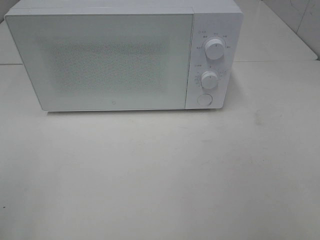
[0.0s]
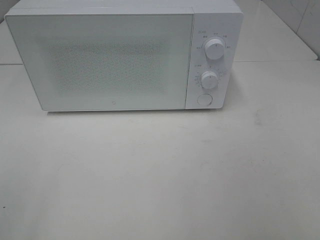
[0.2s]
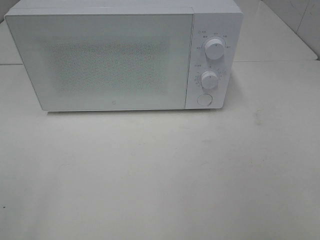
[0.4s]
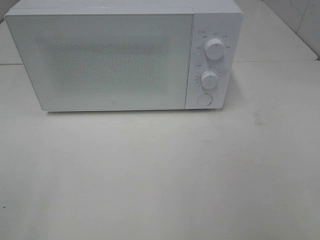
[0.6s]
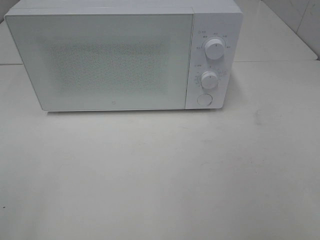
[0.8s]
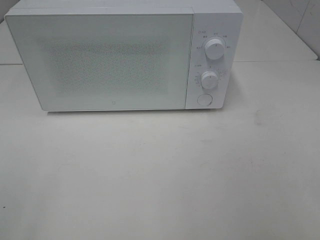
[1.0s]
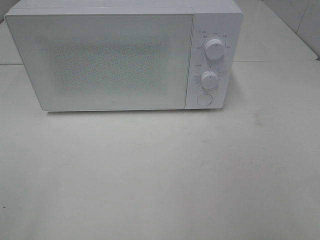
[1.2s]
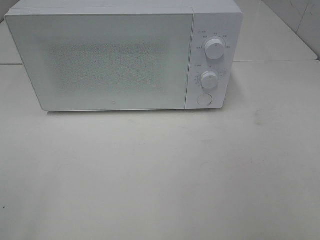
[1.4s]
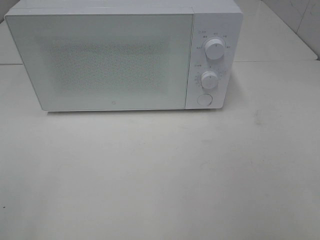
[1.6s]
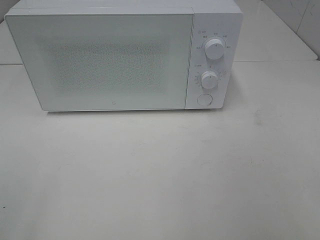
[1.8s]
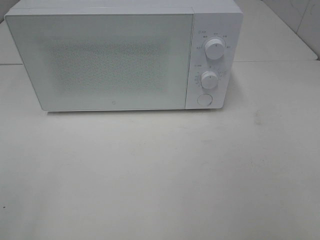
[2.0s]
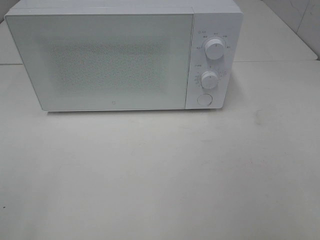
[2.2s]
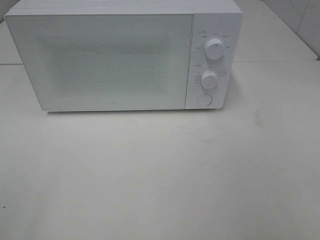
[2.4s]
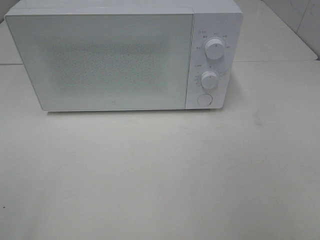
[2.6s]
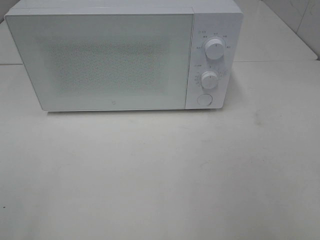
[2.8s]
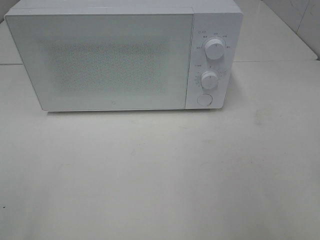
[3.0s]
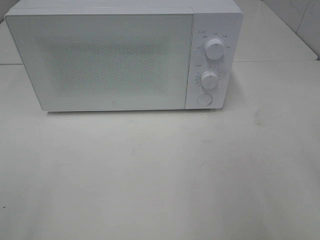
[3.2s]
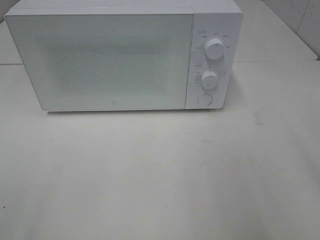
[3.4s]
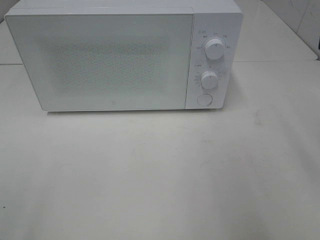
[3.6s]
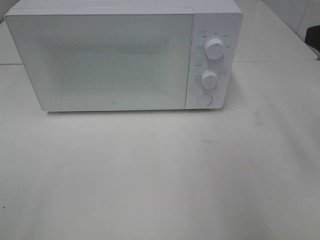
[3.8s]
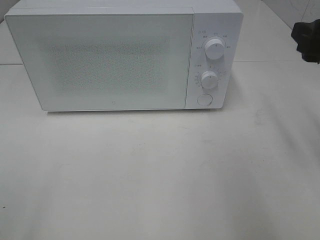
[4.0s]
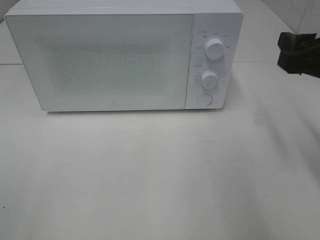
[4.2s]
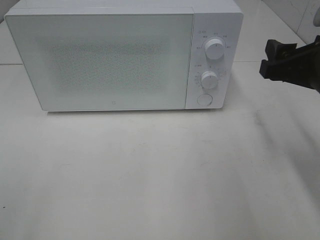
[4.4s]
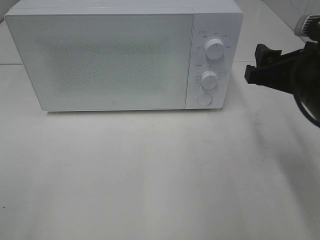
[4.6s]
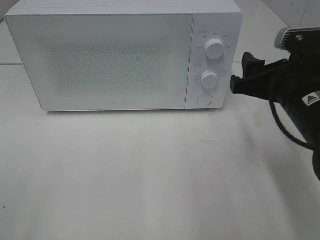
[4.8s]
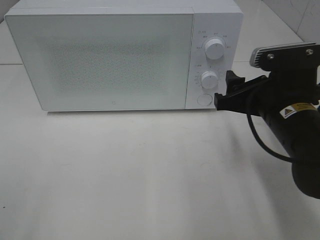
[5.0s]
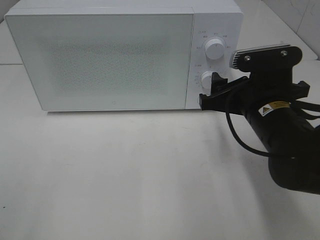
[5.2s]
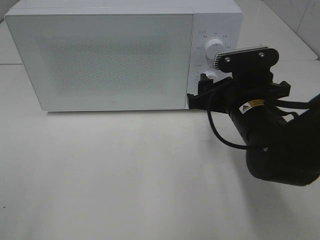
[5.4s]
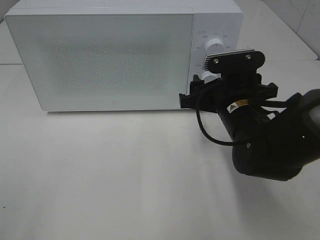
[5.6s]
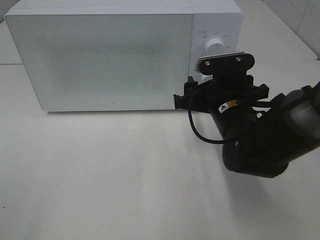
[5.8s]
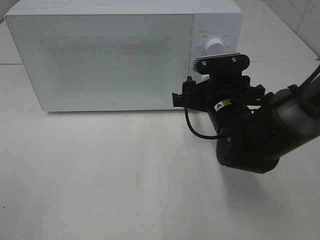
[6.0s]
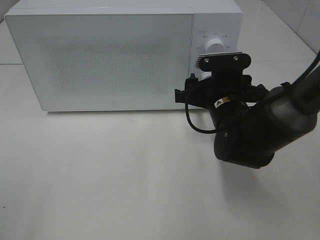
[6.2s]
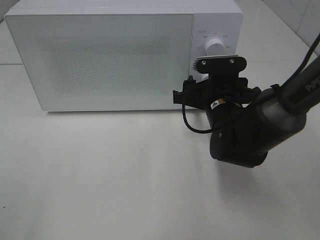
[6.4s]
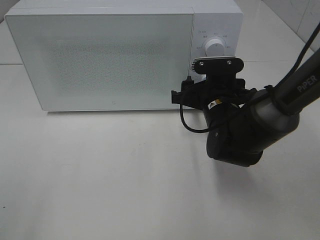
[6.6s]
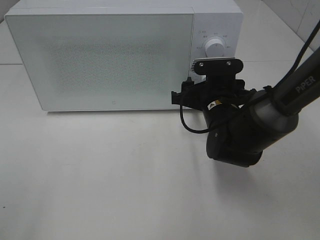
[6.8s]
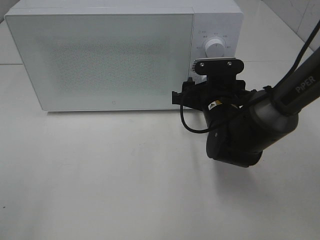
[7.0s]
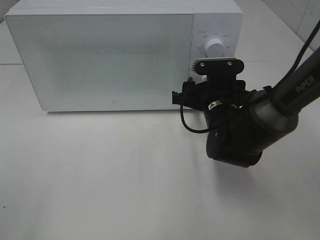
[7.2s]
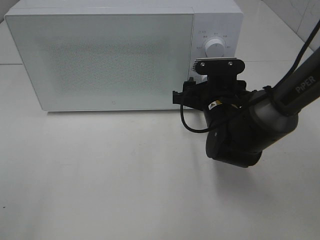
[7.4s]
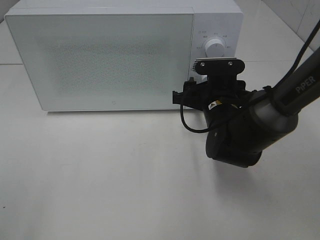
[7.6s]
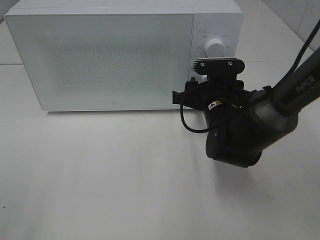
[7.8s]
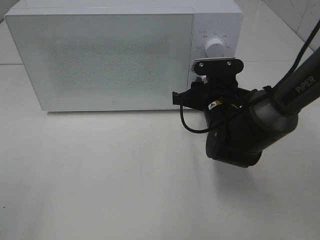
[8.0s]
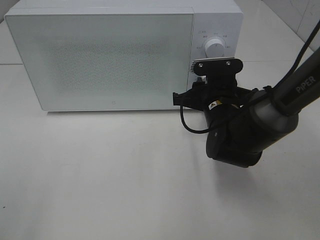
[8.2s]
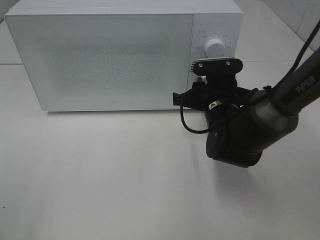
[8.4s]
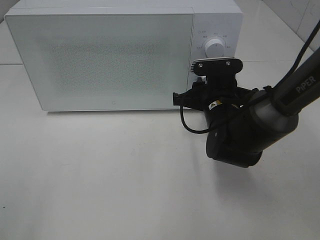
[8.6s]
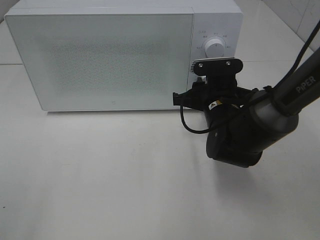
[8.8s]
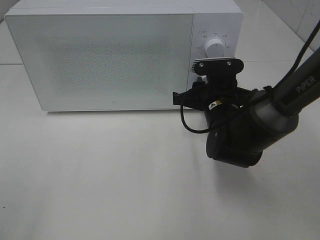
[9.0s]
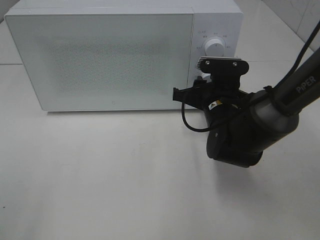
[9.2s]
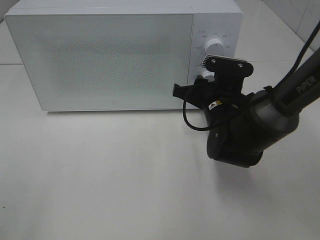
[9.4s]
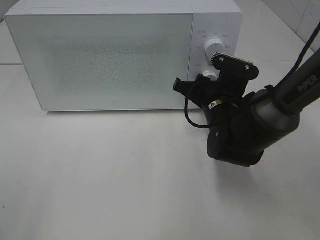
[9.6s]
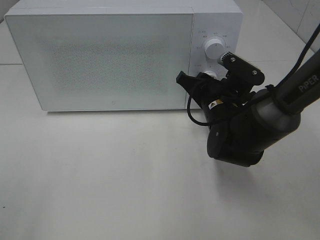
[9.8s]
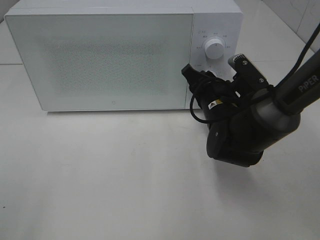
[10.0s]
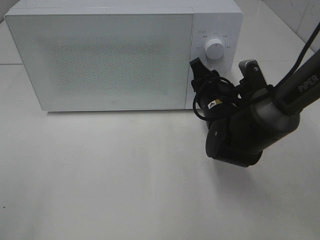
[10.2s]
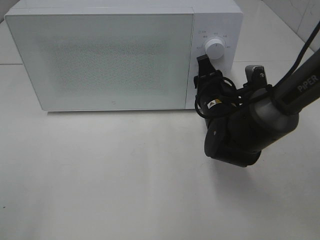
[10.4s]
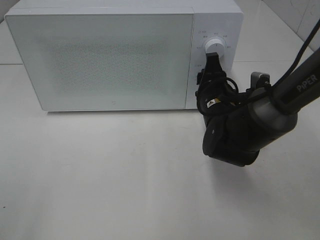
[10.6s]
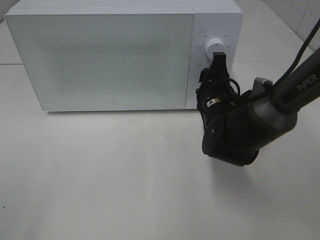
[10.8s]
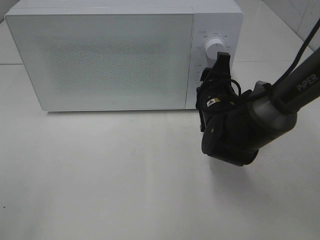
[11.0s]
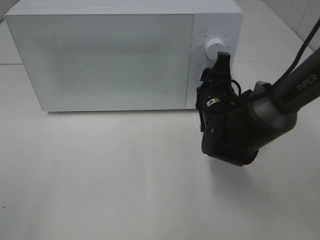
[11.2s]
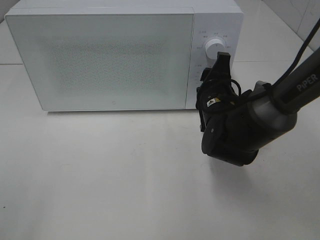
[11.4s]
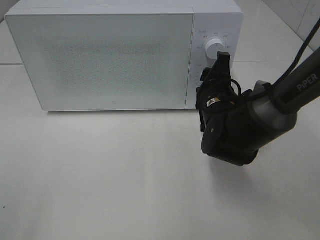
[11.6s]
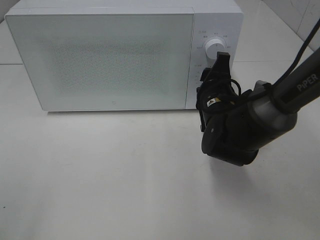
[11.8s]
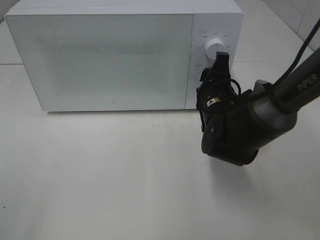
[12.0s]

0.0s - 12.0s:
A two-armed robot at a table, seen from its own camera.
Task of the whole recording: Heat the burger.
3.0s - 4.4s: The right gripper moves forward and downward, some 15 cm.
4.4s - 6.0s: The right gripper is displaced to the left, downward and forward by some 15 cm.
6.0s - 7.6s: There are only small adjustments of the grippers.
7.6s - 9.0s: Both grippers stay about where they are.

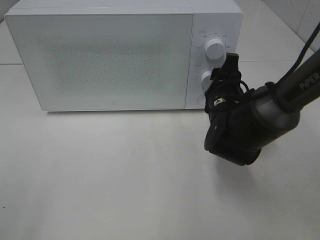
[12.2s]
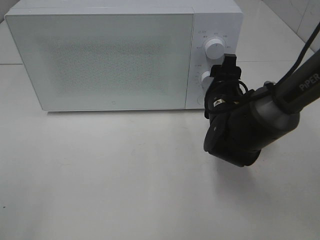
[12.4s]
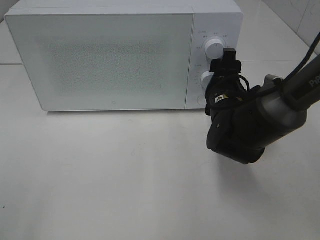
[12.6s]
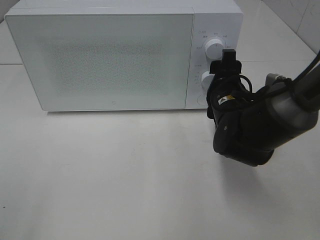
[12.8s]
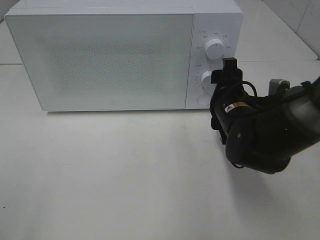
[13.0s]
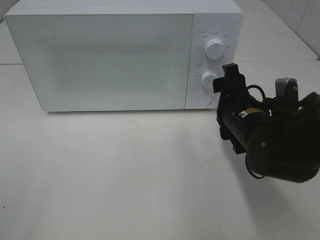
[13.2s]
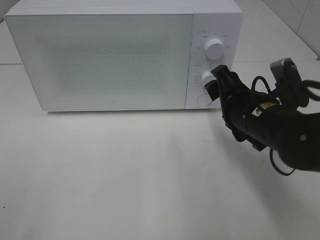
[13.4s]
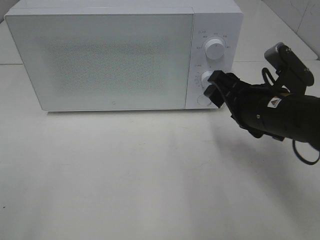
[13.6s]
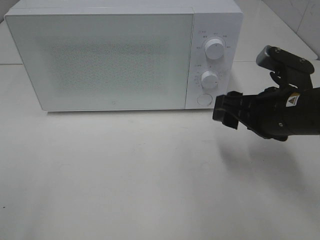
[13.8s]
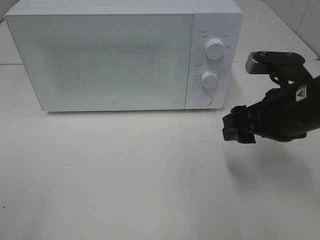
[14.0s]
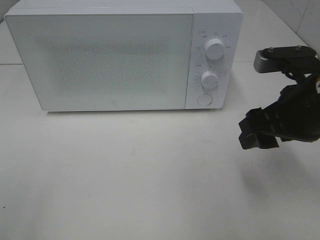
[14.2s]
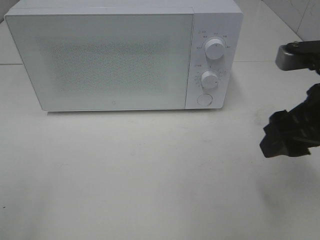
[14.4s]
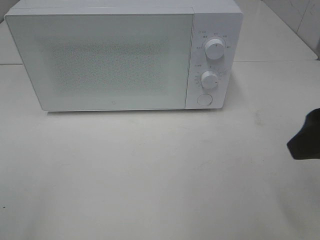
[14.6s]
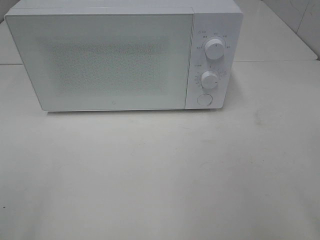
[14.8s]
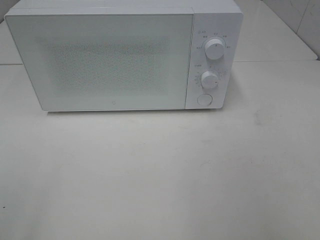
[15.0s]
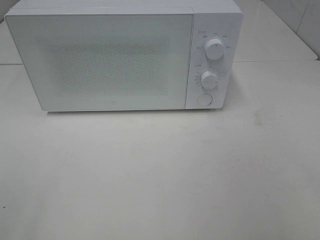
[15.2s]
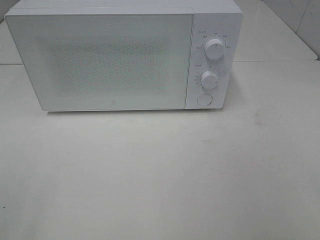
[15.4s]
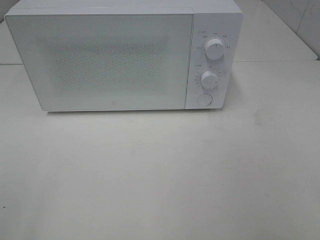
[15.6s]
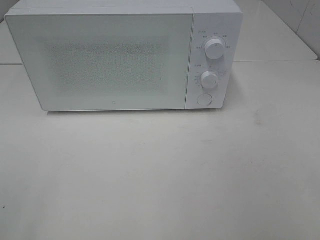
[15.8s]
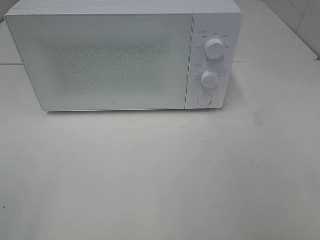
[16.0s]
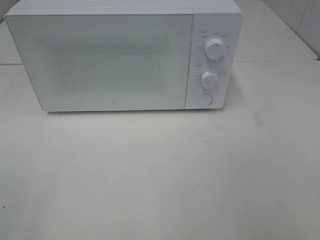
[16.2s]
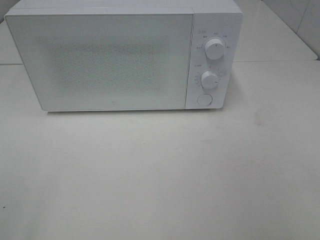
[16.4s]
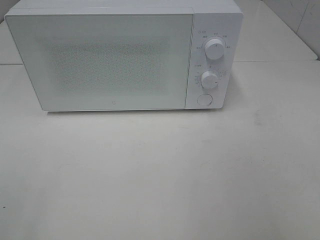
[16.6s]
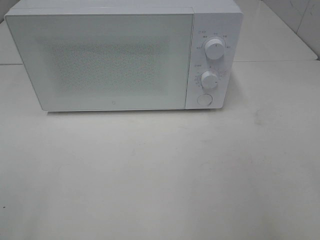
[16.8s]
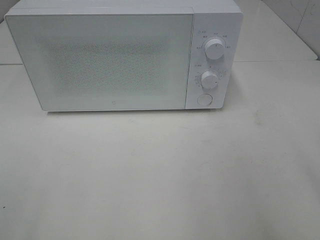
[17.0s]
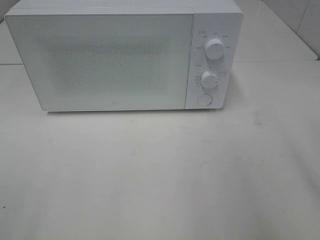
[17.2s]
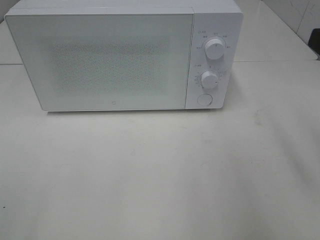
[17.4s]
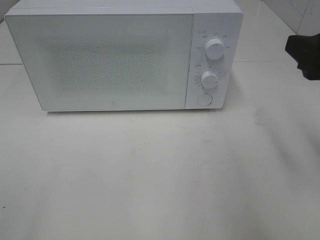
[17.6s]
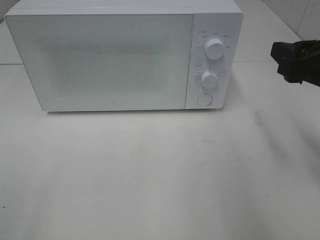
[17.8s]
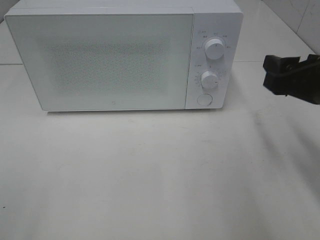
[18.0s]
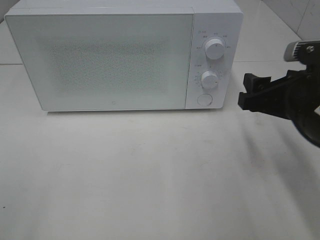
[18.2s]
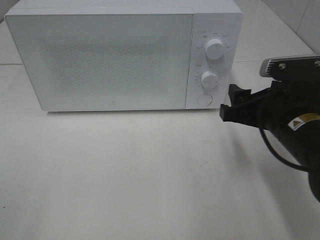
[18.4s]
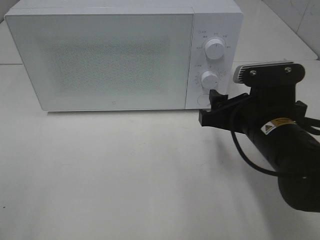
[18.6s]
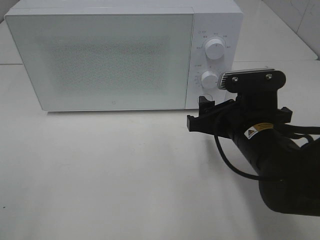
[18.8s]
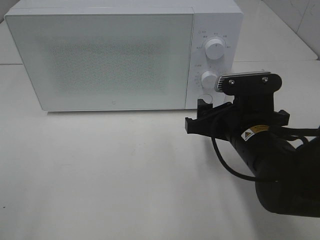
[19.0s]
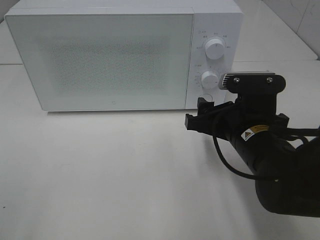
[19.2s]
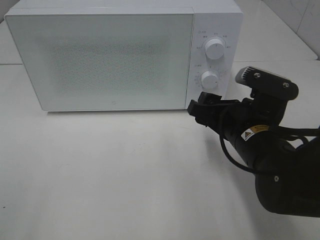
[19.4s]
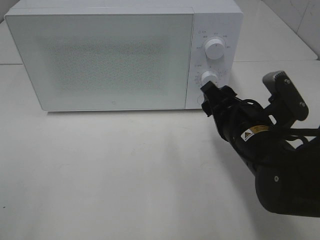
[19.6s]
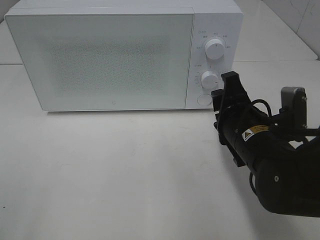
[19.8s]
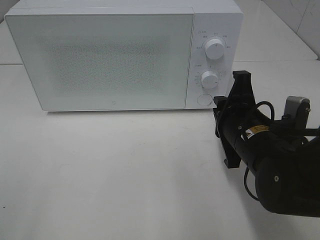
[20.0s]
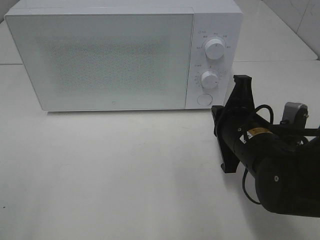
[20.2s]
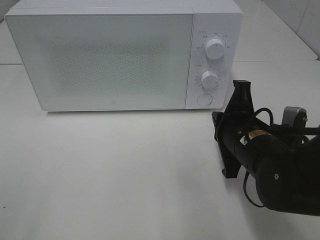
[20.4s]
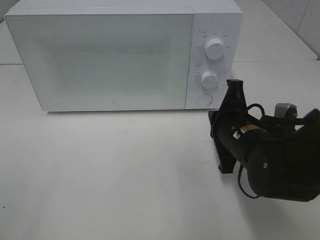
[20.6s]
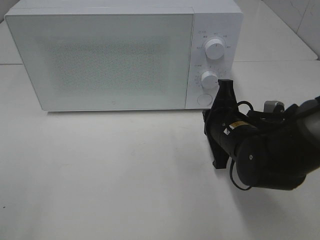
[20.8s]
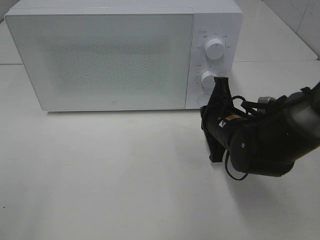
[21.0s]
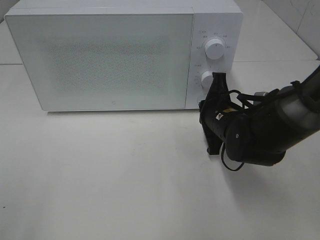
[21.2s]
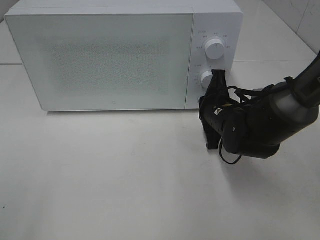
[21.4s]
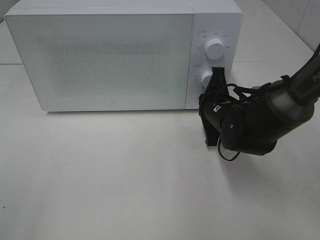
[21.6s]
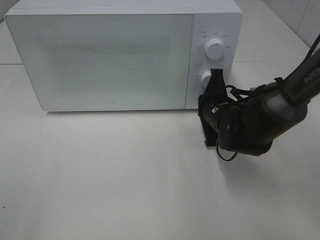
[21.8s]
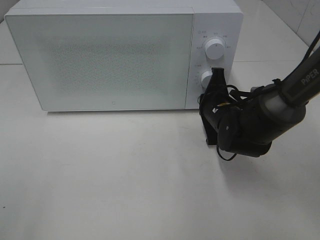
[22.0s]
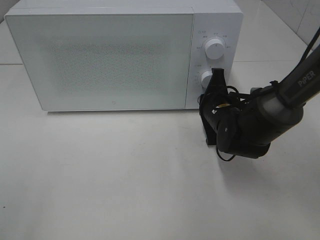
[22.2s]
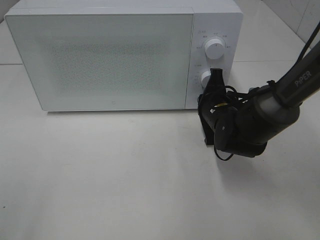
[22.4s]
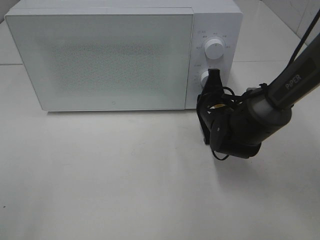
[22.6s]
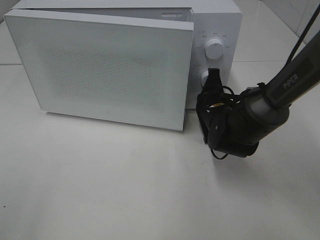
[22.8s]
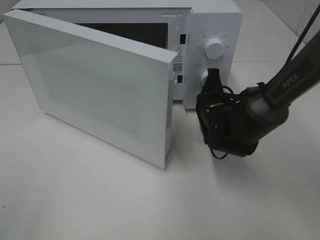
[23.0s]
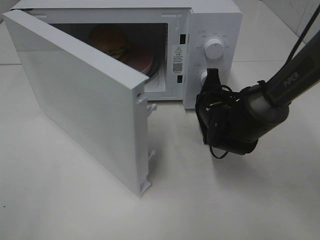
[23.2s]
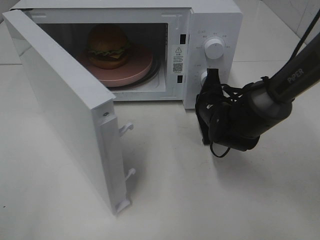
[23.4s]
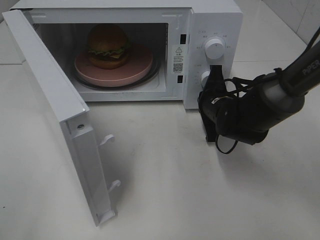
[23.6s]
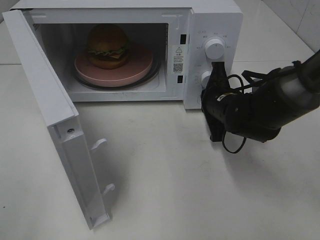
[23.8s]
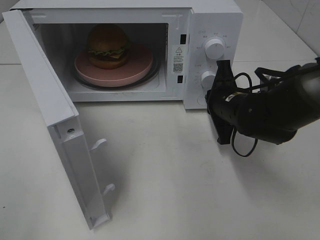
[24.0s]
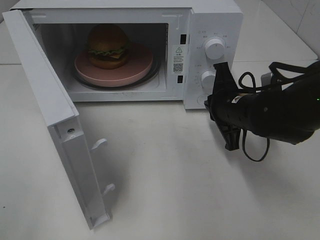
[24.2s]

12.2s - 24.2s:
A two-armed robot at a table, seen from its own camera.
Task of the whole recording: Heat the burger.
12.2s - 13.8s: The right gripper moves backward, upward and to the right, some 10 cm.
13.8s - 15.2s: The right gripper moves backward, upward and to the right, some 30 cm.
16.6s - 18.2s: The right gripper shifts some 25 cm forward and downward.
18.2s - 19.8s: The right gripper goes approximately 10 cm to the left.
19.8s - 21.2s: The right gripper moves forward, roughly 10 cm, and closes its fingers.
21.2s - 22.6s: The grippers stay close to where they were, moving slightly.
22.6s - 24.2s: The right gripper shifts approximately 5 cm upward.
